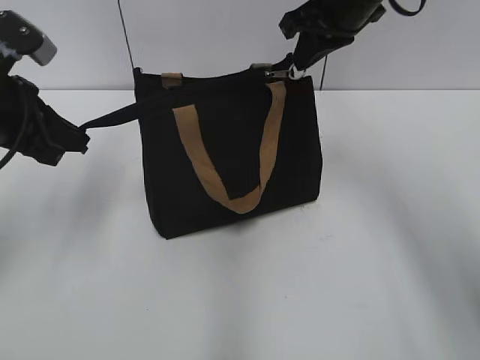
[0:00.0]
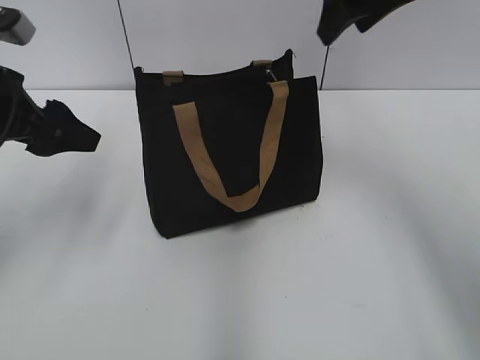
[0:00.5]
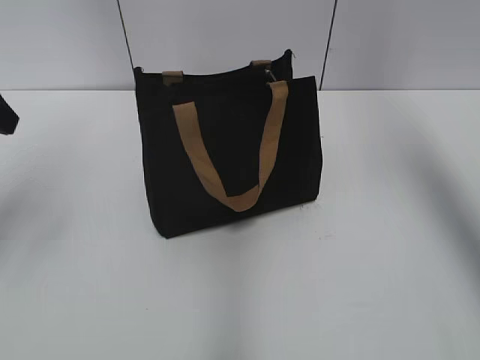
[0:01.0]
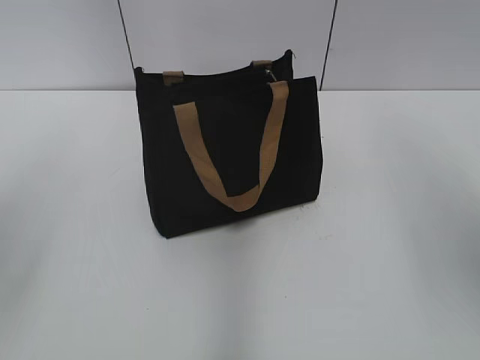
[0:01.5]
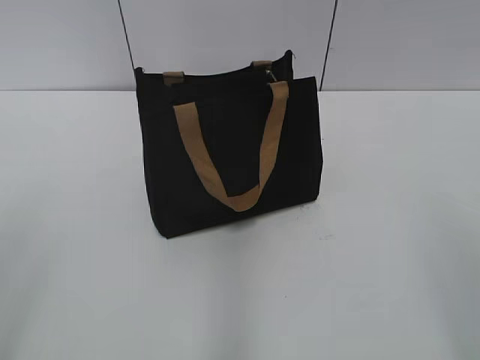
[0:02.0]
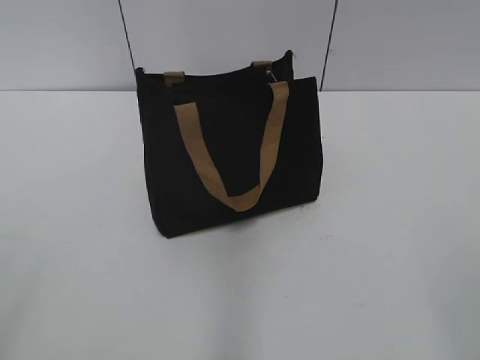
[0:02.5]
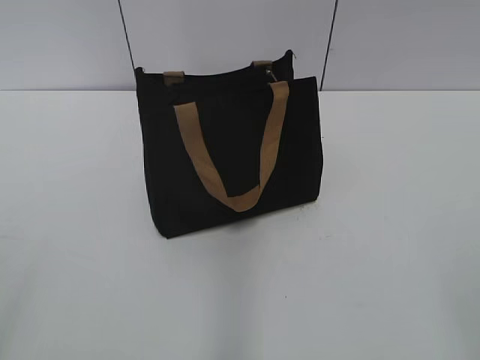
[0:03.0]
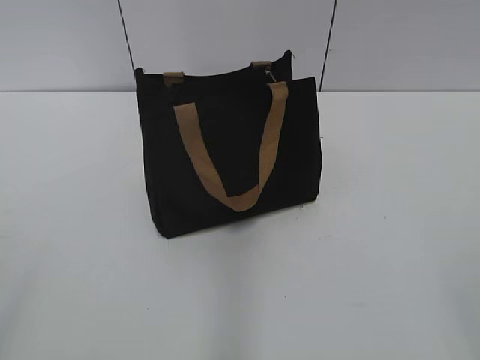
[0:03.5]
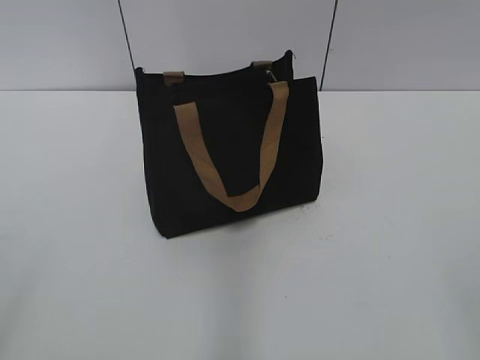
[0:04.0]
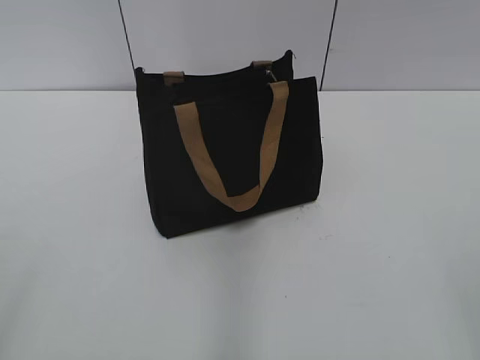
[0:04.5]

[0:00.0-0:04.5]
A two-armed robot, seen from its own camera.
0:00.0 to 0:02.0: The right gripper is displaced backward by some 35 cm, and opens its fingers. The left gripper is displaced backward by about 25 cm, and opens its fingers.

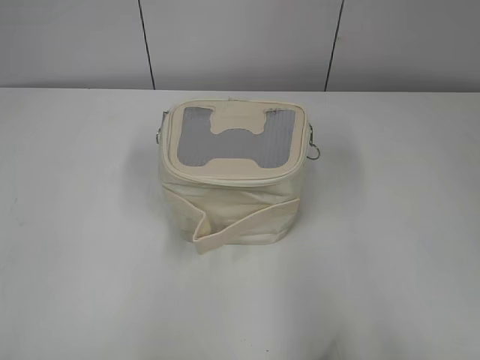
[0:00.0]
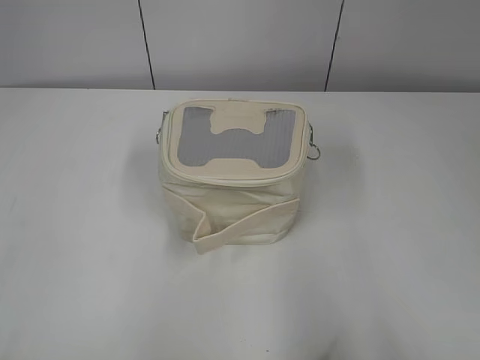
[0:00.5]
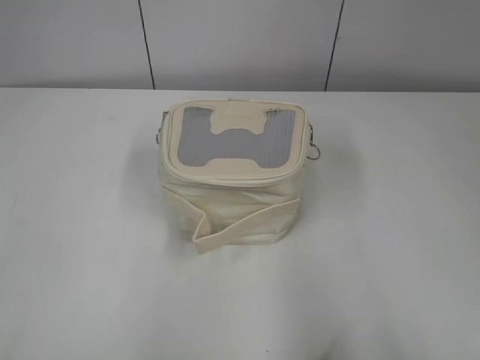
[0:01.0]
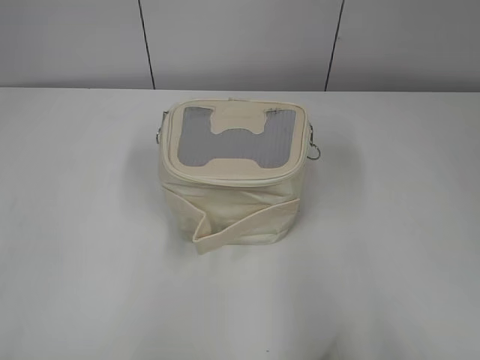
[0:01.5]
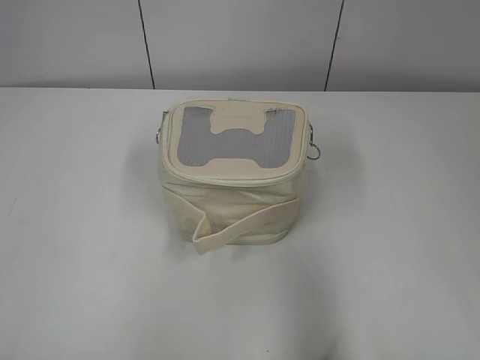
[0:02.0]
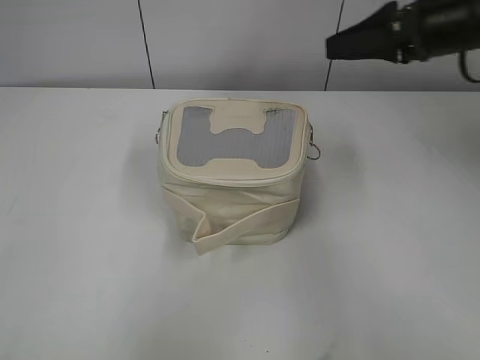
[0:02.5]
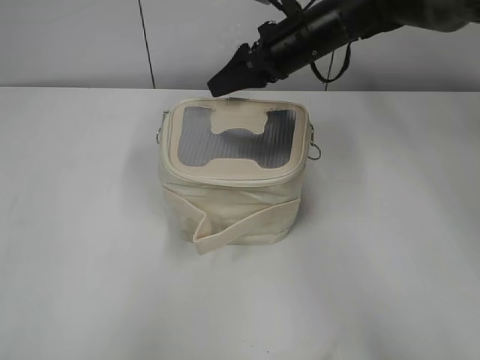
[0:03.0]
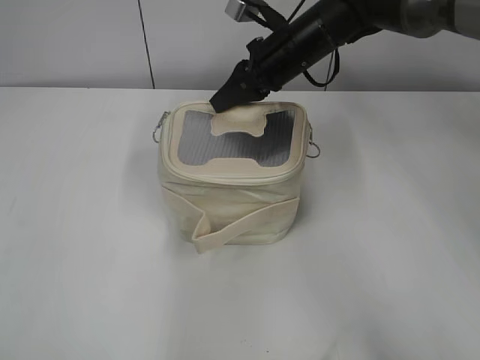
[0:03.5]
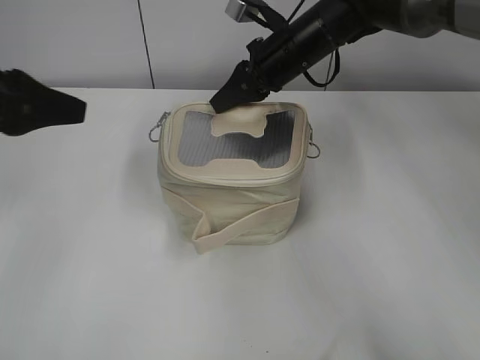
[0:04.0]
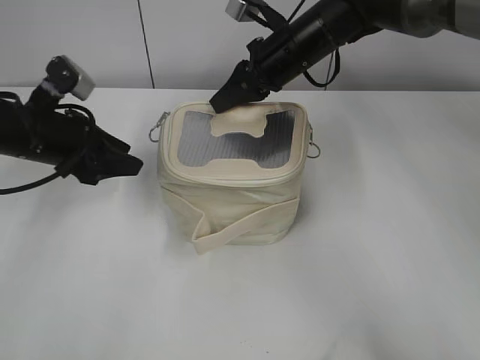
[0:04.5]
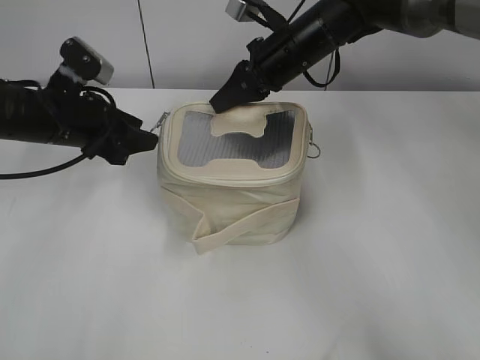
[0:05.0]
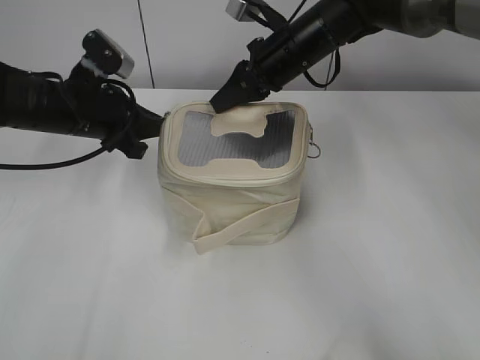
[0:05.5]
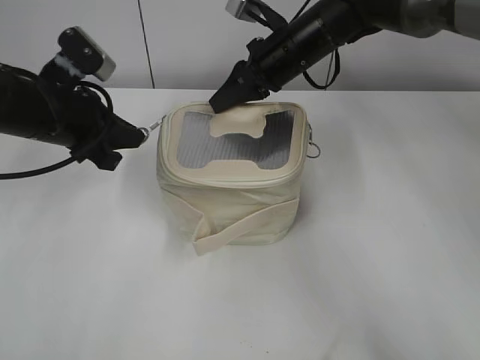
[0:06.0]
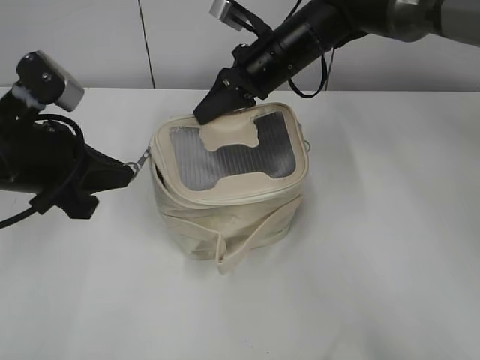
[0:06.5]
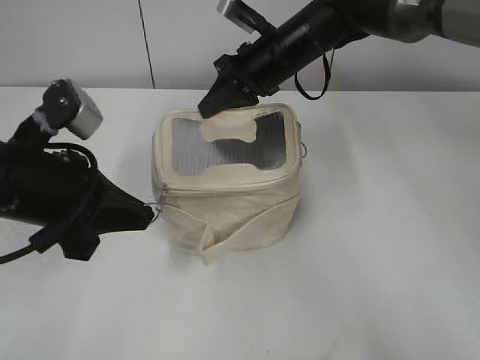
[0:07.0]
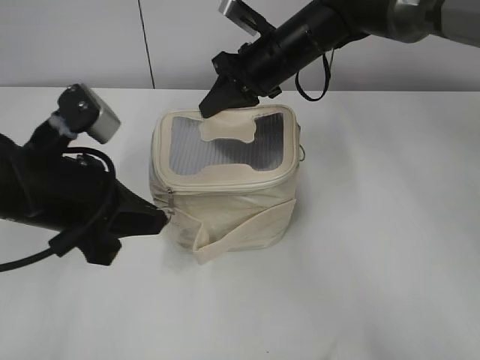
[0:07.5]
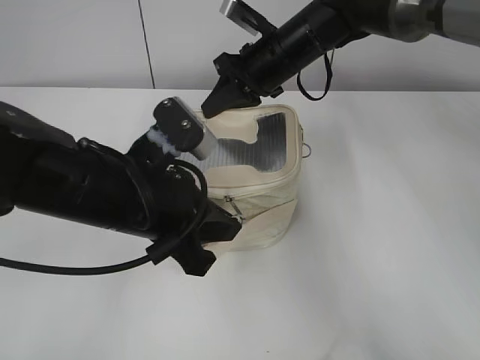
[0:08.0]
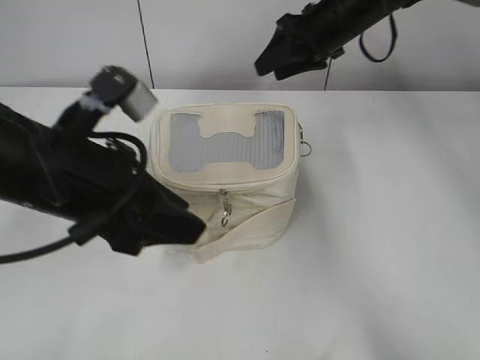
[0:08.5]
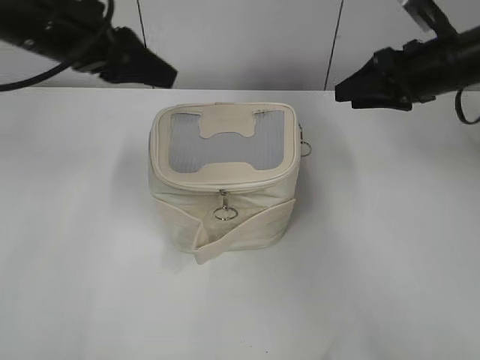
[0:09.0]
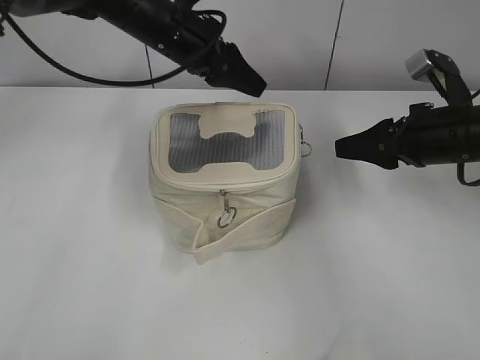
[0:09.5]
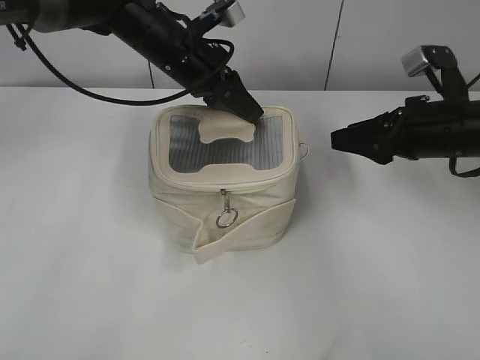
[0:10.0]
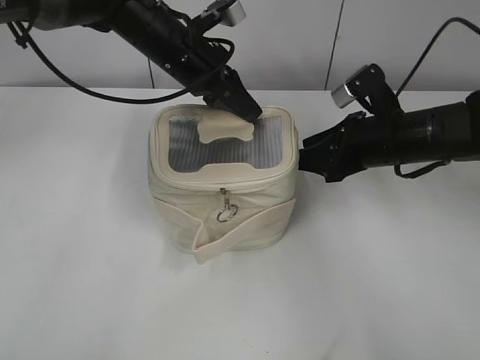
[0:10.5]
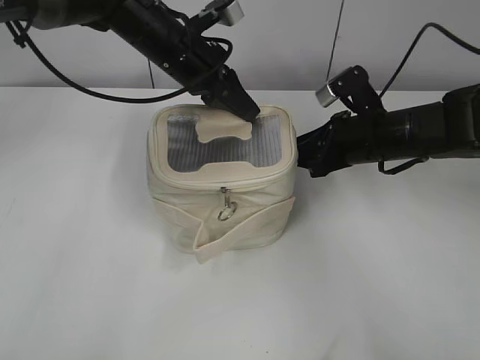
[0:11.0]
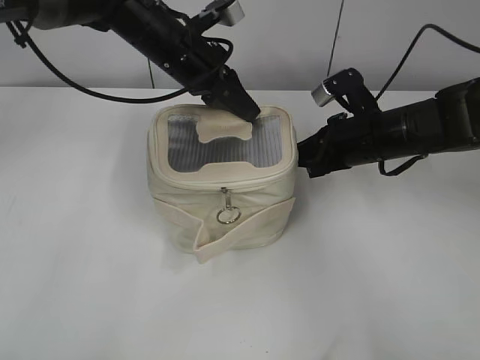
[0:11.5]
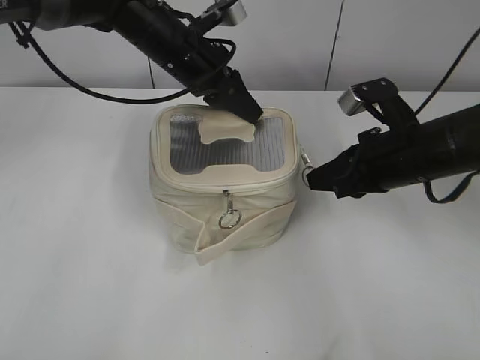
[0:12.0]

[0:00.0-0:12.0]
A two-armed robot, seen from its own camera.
Step, 0:00.0 to 0:08.0: Zip up the bag with your left hand.
0:02.0 to 0:04.0: The right gripper heads forward and to the left, covering approximately 50 cm, and closes up. The left gripper travels forward by approximately 25 cm.
0:04.0 to 0:06.0: The left gripper goes approximately 15 cm forward, downward and to the right, and closes its fingers.
0:06.0 to 0:08.0: The left gripper is displaced backward and to the right by about 15 cm.
0:08.0 to 0:10.0: The left gripper moves forward, approximately 20 cm, and opens its fingers, while the right gripper moves to the right and backward, some 20 cm, and opens.
0:10.0 to 0:12.0: The right gripper travels to the left by approximately 5 cm, and closes its fingers. The left gripper closes up.

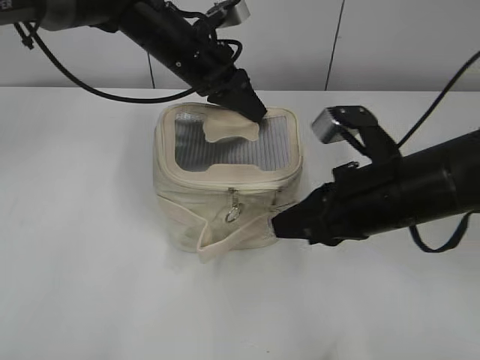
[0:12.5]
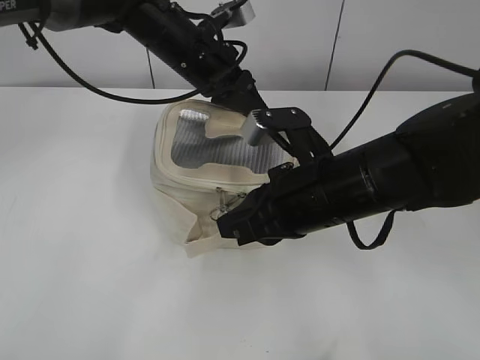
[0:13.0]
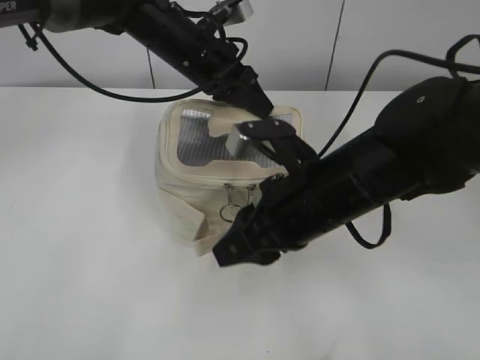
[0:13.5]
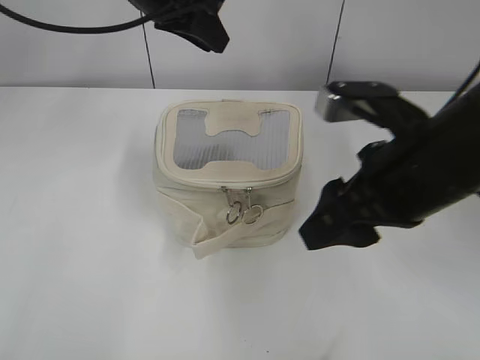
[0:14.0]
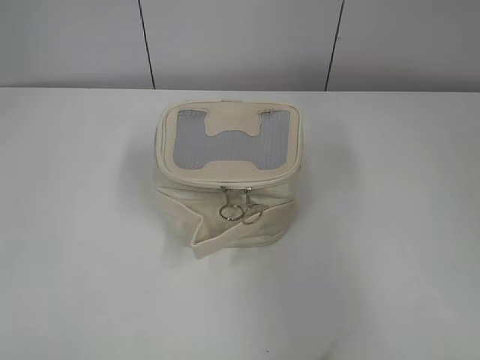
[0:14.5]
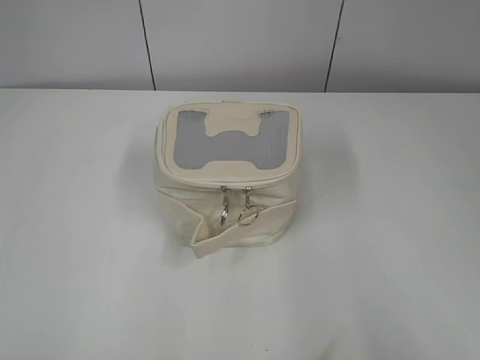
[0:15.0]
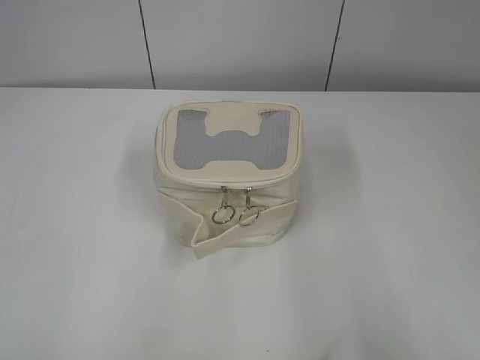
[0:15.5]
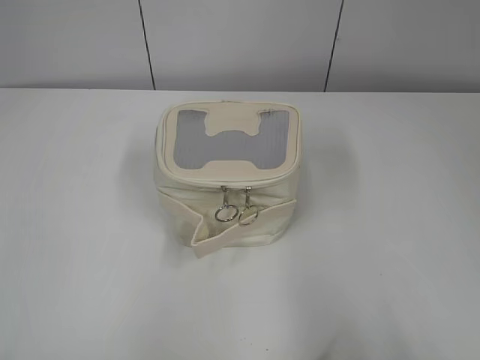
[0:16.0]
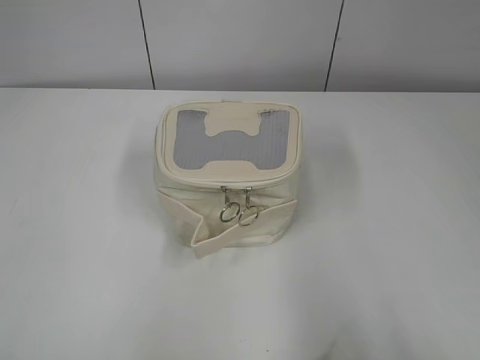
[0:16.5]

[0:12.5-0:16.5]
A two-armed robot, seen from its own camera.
0:12.5 to 0:14.5: The right gripper moves backward, upward and to the right, about 20 cm, and opens, while the left gripper shifts approximately 35 cm backward, upward and to the left, and opens.
0:14.5 to 0:16.5: The right gripper travels backward and to the right by about 10 cm; the left gripper moves backward, downward and to the left, about 20 cm, and opens, then closes once more.
